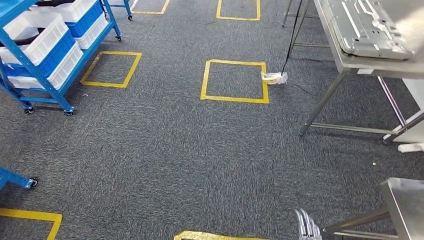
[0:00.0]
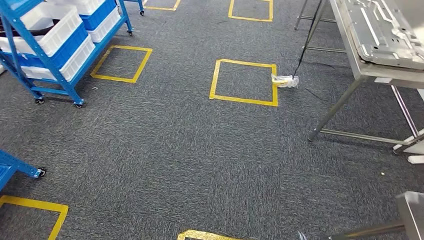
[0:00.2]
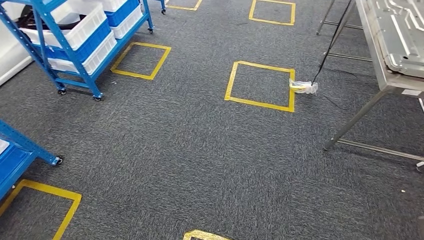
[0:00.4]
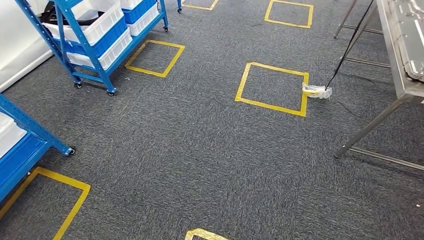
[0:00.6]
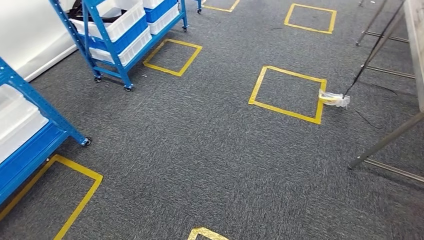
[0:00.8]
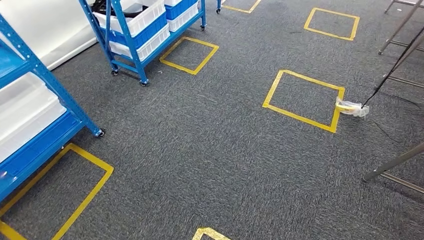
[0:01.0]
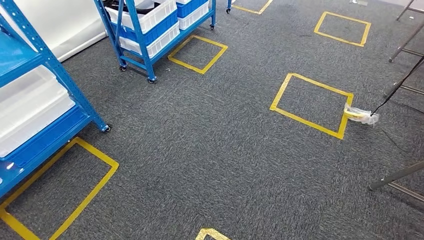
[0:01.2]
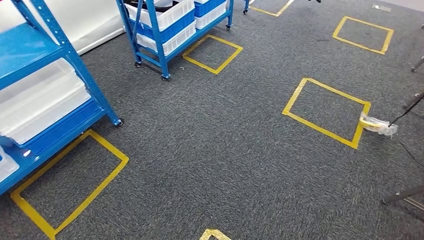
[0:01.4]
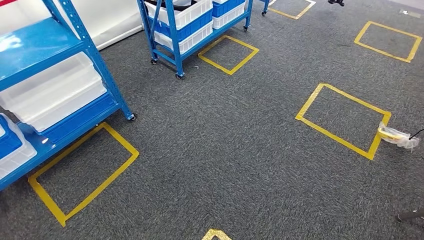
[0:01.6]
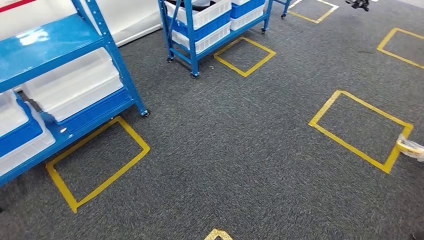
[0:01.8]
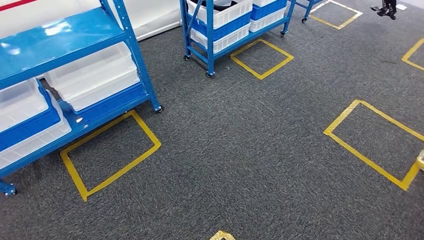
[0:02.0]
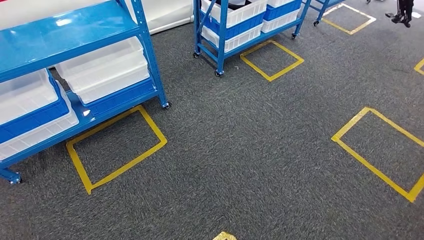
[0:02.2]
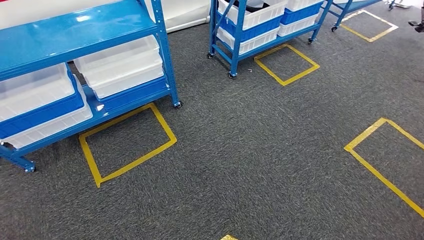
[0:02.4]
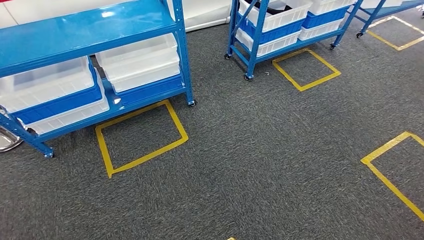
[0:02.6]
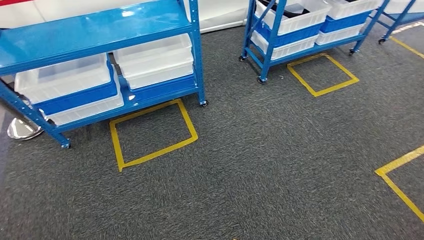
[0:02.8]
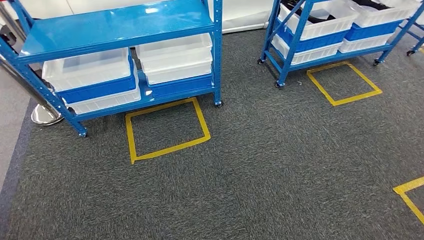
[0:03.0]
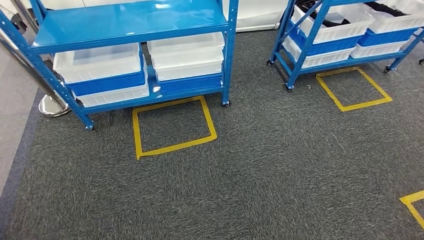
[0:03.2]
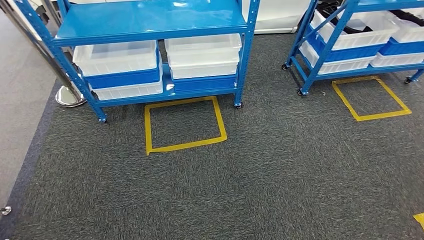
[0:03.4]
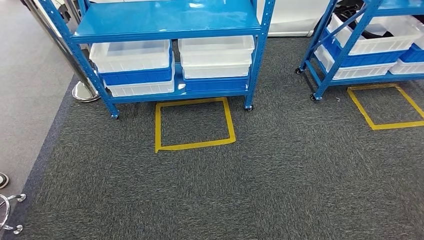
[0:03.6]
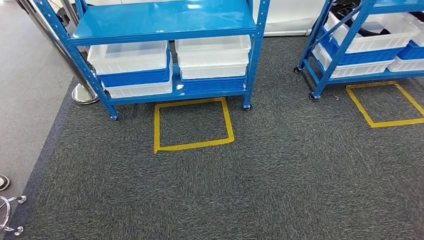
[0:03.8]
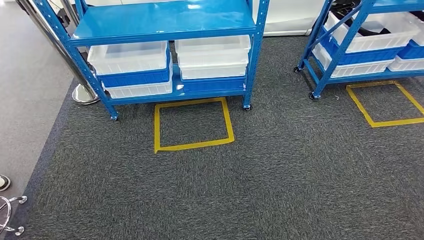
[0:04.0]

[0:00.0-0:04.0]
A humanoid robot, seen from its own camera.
Step, 0:00.0 to 0:03.8: Return to the initial position at the shelf.
